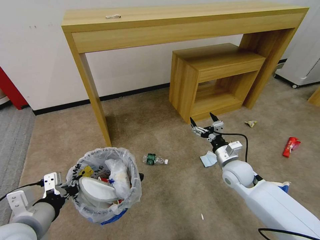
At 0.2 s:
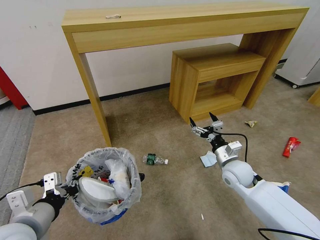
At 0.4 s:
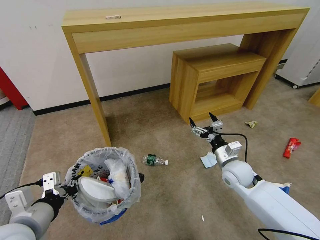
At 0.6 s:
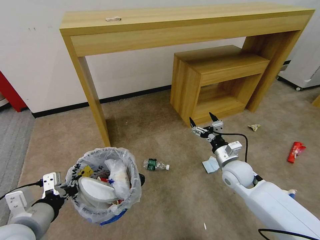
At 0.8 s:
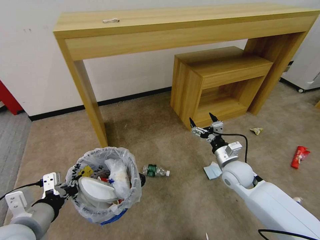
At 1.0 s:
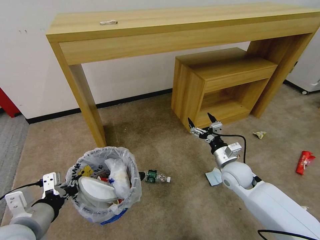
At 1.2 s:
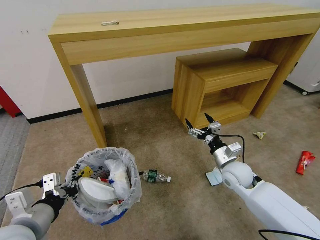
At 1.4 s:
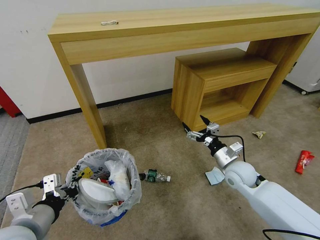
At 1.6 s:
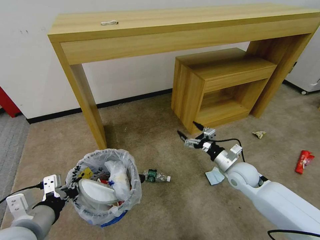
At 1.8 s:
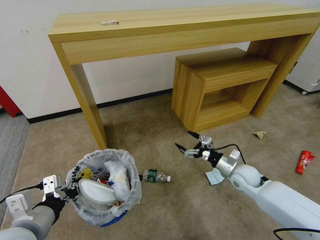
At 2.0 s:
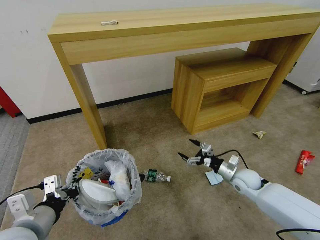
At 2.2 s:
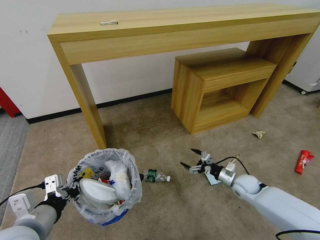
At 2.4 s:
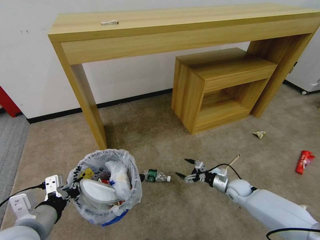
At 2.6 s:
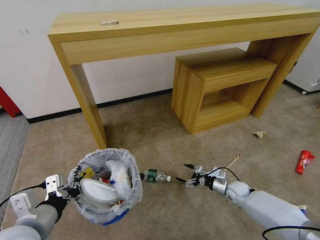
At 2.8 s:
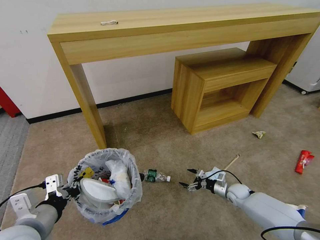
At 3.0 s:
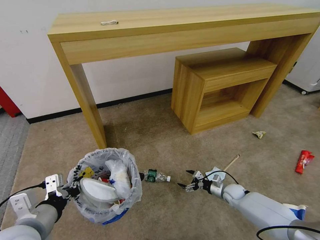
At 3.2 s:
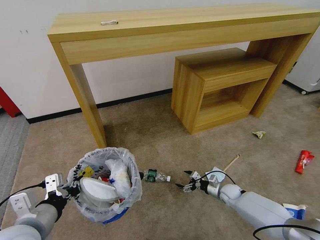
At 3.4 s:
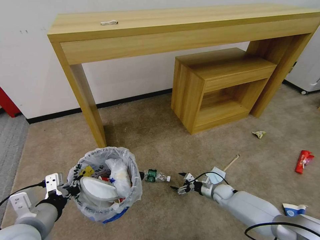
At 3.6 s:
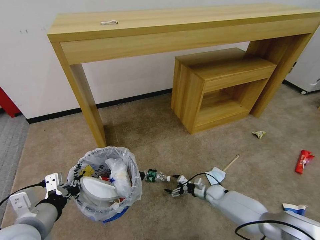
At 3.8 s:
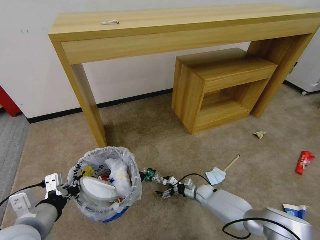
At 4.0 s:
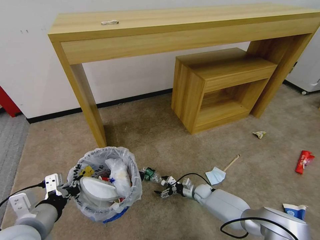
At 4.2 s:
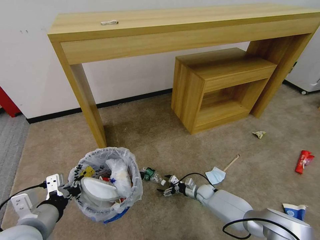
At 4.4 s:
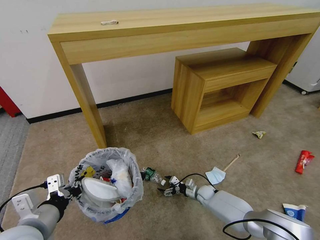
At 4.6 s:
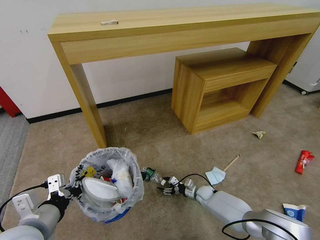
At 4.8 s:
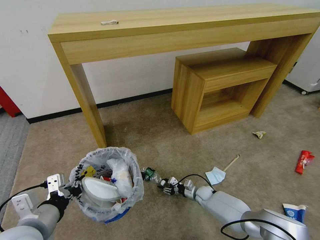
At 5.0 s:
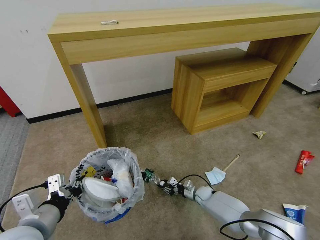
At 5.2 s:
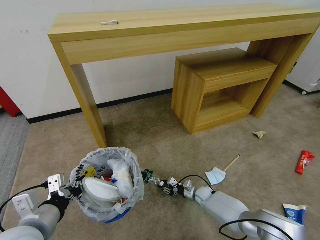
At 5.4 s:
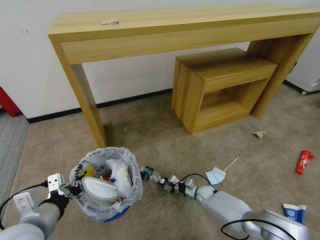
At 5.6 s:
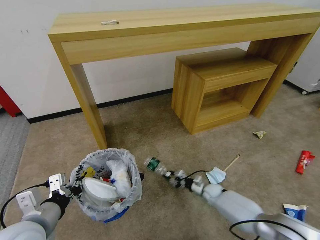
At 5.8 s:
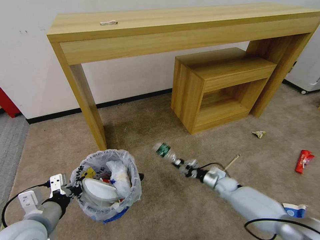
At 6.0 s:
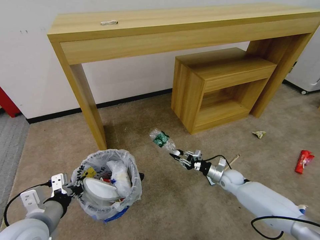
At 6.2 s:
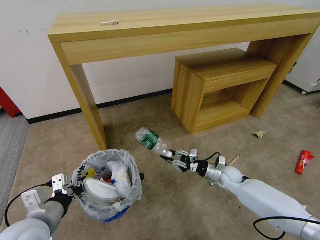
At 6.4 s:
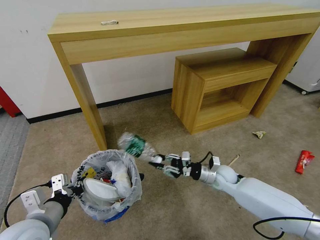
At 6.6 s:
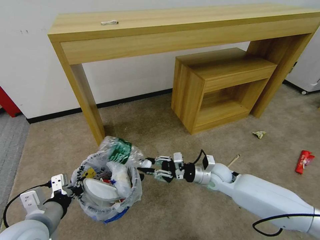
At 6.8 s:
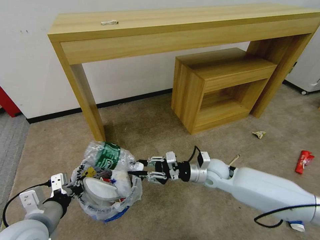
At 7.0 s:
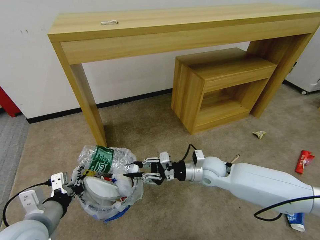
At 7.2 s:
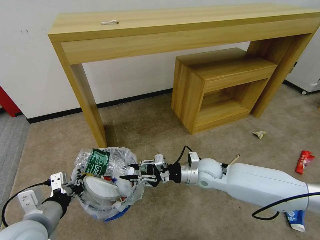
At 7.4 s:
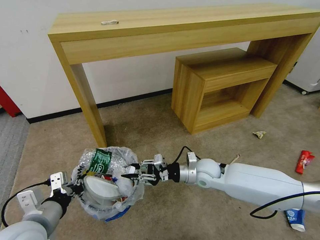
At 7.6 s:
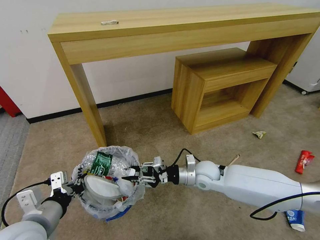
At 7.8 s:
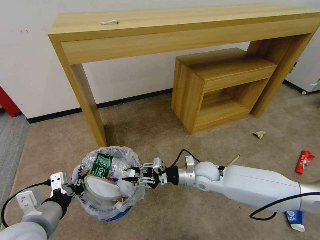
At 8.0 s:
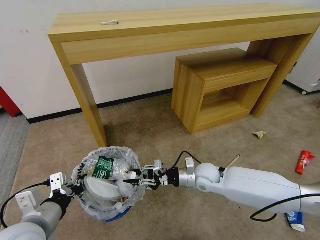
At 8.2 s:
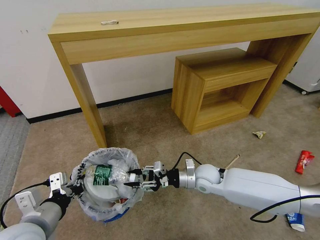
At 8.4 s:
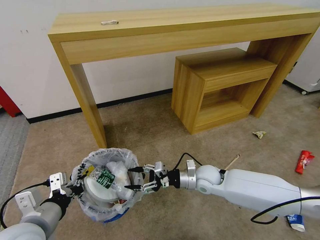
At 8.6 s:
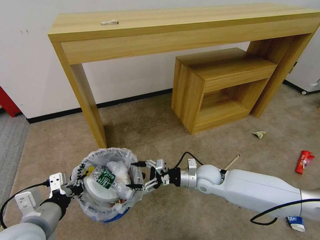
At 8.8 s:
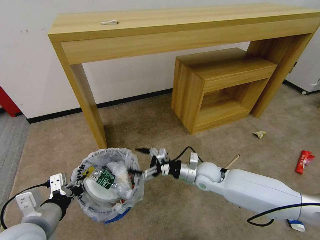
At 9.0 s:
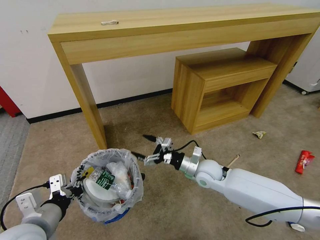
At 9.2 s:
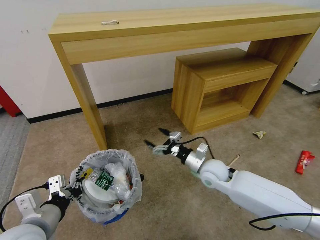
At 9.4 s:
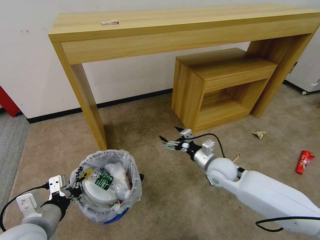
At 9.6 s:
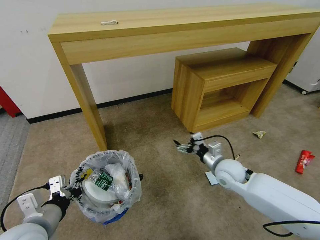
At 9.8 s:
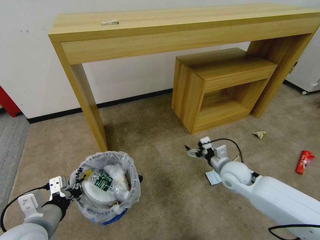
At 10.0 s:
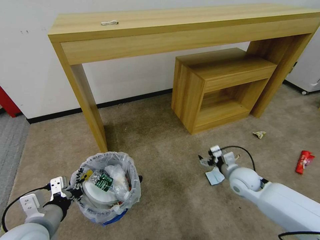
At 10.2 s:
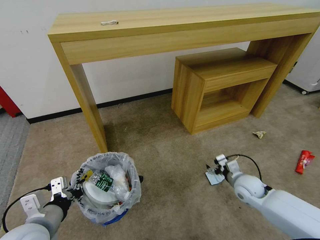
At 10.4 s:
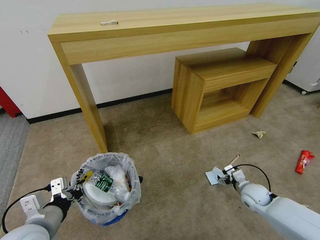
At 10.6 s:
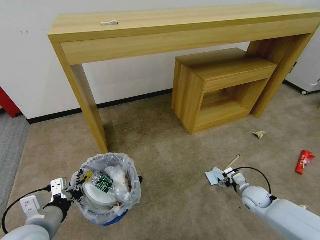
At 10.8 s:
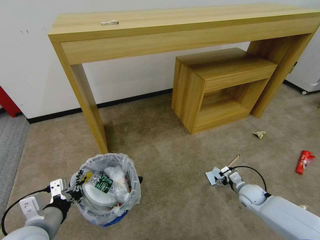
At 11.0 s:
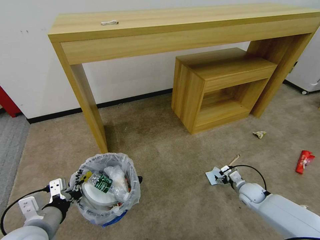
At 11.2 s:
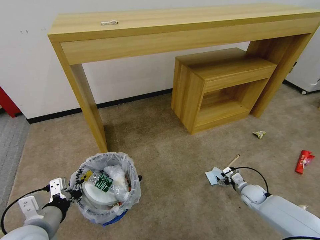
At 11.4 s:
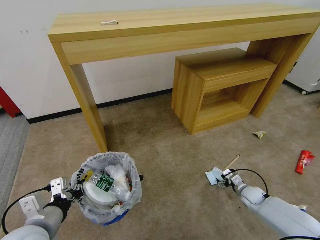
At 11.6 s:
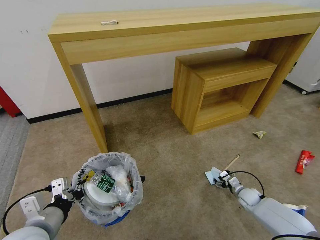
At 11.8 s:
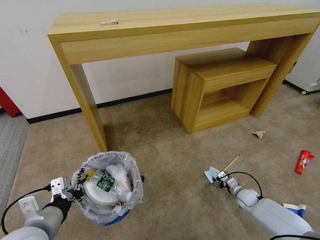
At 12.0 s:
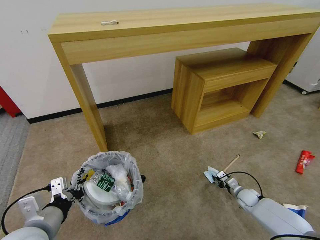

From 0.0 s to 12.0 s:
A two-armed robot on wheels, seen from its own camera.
Task of the whole recording: Pick up the trash bin and place the garbage on the floor into it.
From 1.6 s to 3.0 s: The right gripper moves downward, approximately 20 cm.
From 3.0 s to 4.4 s: The right gripper travels to the left and downward by about 10 cm.
From 4.4 s to 6.0 s: The right gripper goes roughly 15 cm upward and to the right, and closes.
From 6.0 s to 7.6 s: The right gripper is displaced to the left and upward by about 20 cm.
From 7.6 s to 9.0 s: The right gripper opens up.
From 9.0 s to 10.4 s: The right gripper travels to the right and downward by some 20 cm.
From 10.4 s to 12.0 s: The right gripper moves downward, approximately 10 cm, and closes.

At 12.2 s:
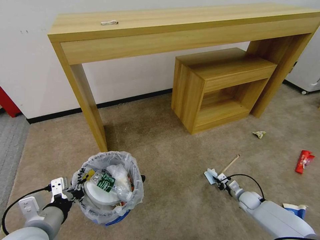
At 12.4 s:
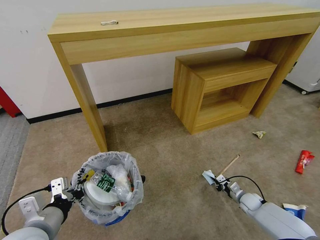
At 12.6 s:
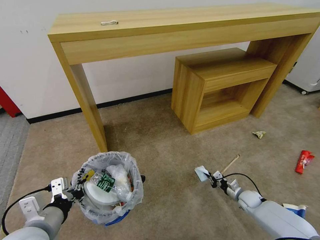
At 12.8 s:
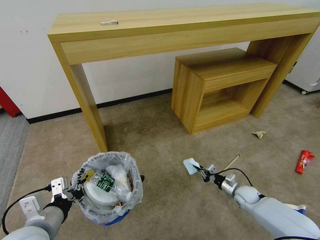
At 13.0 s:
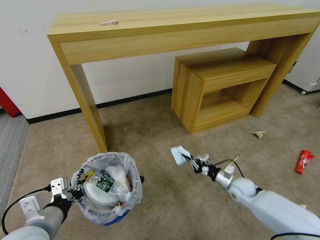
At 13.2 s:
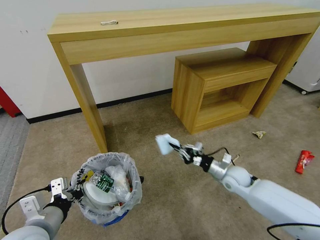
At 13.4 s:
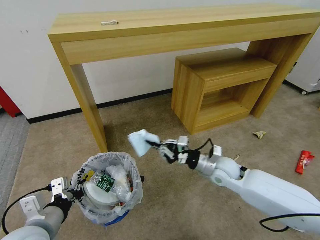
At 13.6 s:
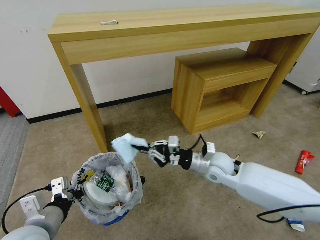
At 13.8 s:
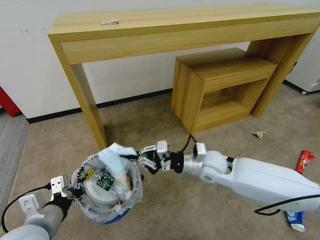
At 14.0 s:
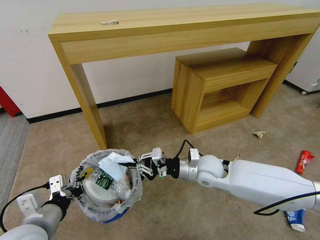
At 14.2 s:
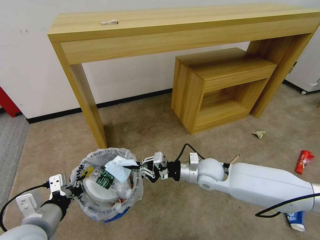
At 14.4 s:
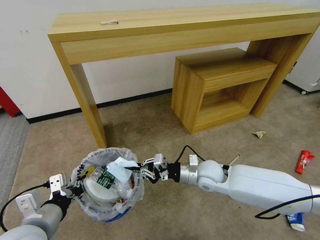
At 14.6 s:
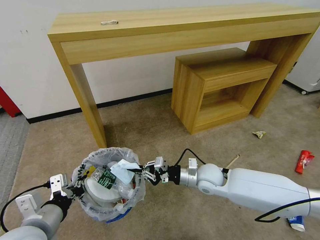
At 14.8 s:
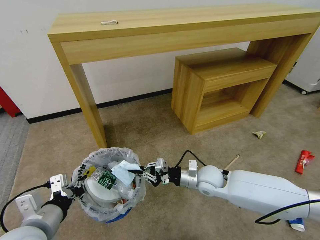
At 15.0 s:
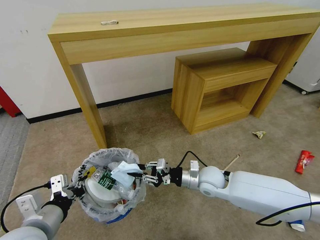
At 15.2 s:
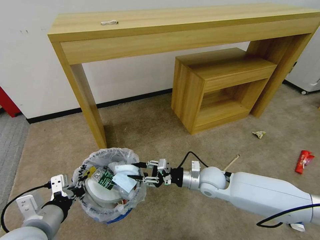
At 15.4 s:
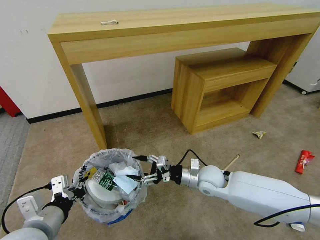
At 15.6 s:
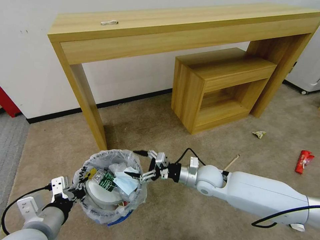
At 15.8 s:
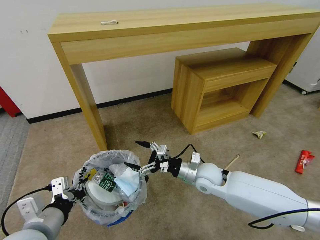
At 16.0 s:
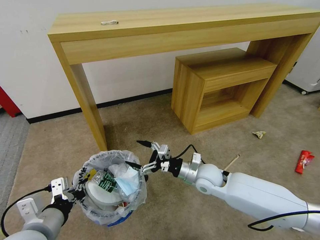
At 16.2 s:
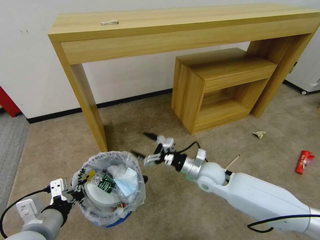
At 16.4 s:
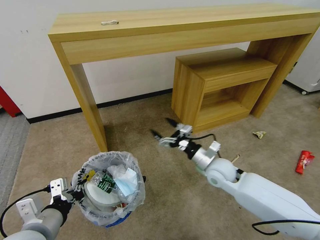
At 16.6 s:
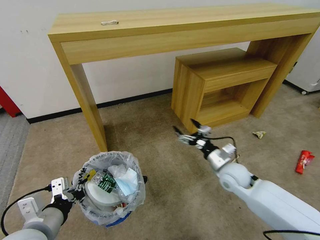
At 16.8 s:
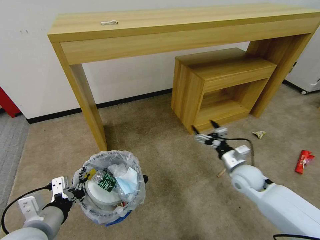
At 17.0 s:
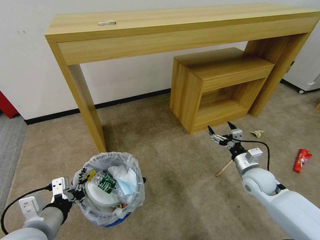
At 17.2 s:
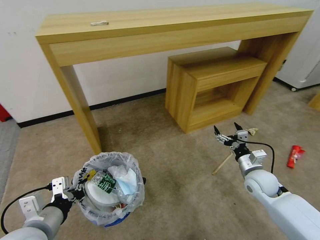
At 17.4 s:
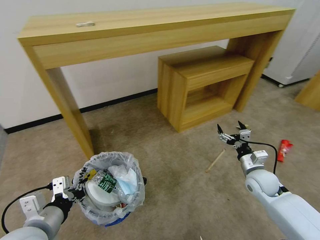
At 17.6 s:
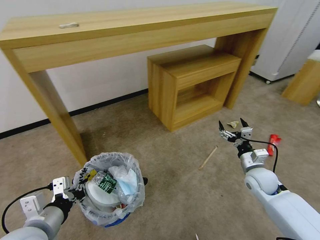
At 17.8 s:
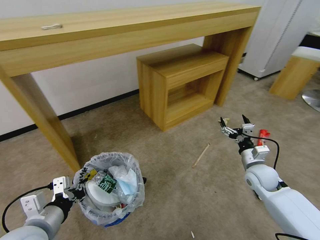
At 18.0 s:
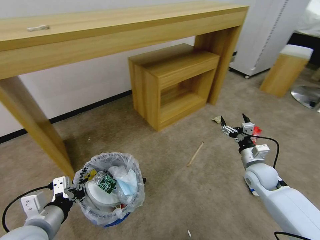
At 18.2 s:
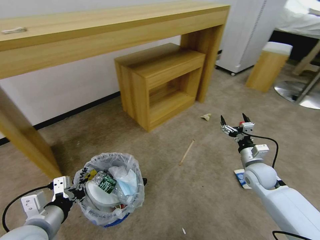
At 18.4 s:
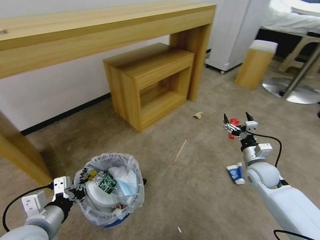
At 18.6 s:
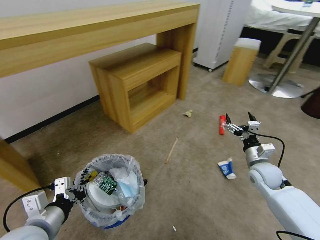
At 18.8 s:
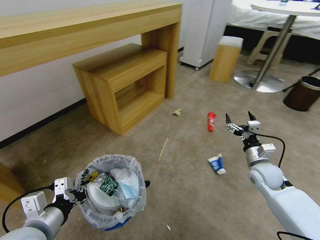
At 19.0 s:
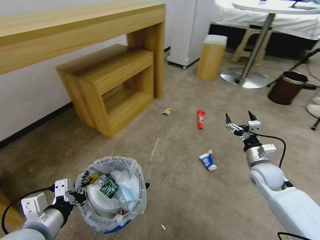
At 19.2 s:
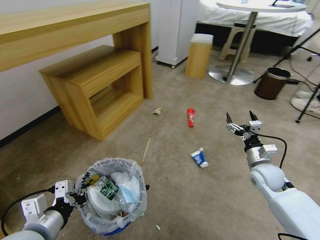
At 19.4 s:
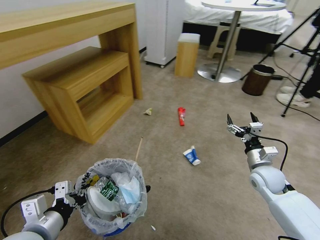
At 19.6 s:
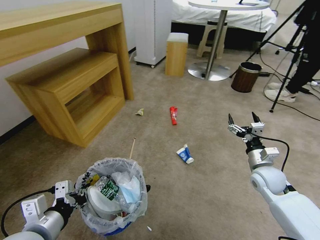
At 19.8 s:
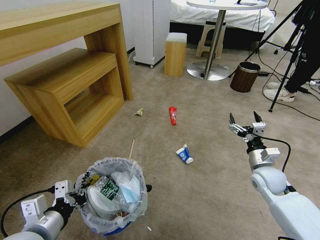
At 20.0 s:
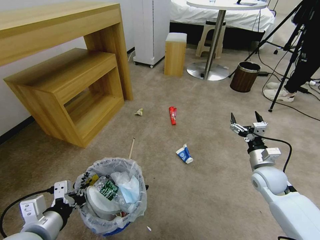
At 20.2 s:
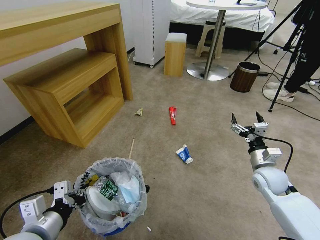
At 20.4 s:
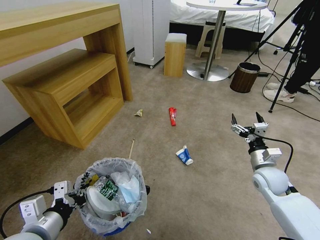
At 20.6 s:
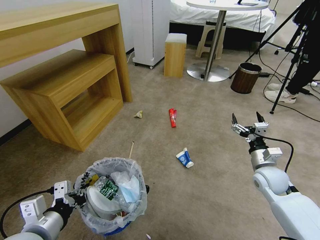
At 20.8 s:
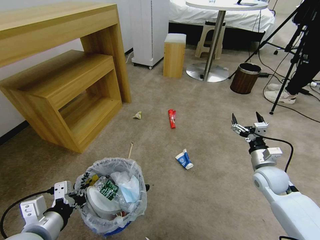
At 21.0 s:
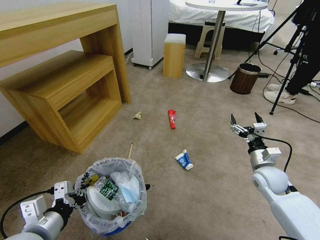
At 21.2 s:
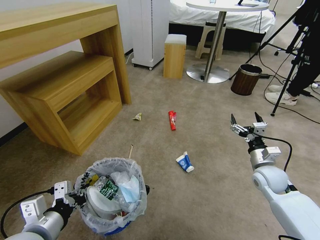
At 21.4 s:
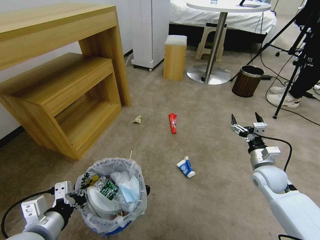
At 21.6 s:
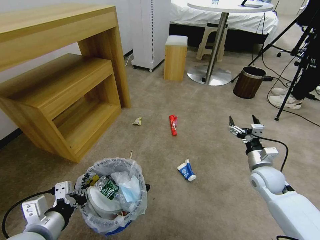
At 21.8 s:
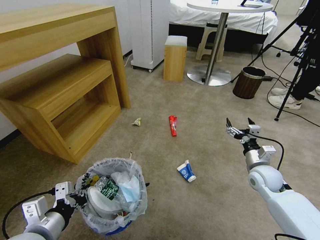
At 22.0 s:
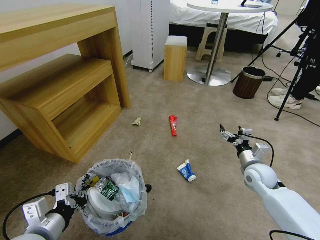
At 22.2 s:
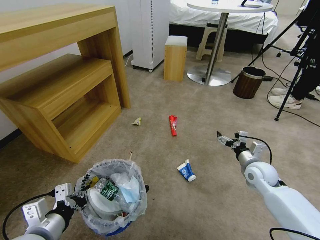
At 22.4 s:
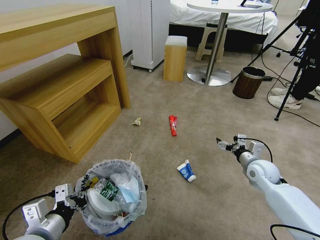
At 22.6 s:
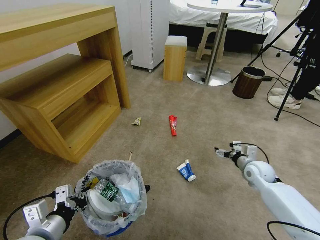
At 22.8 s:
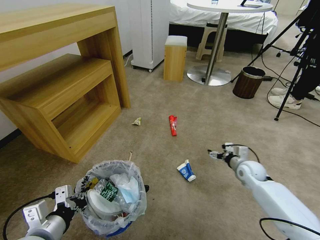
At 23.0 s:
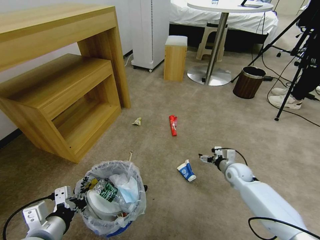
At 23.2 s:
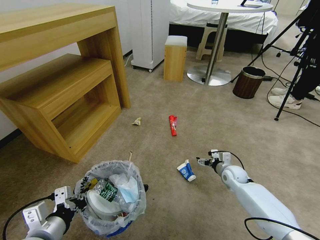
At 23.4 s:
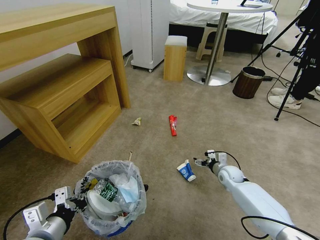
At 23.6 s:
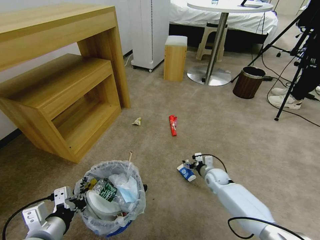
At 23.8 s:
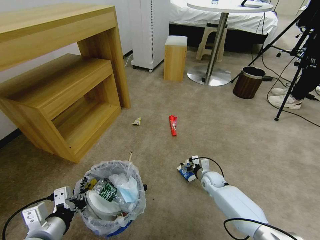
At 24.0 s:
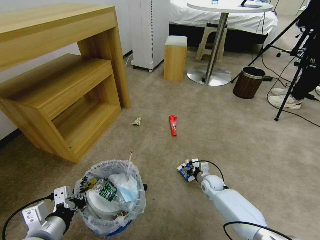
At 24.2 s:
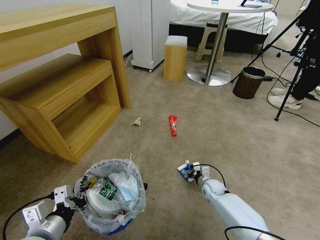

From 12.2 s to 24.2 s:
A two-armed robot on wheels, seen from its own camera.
Task of the whole recording: Pick up the trash bin and place the garbage on the floor into it.
From 12.2 s to 13.8 s: The right gripper is displaced upward and to the left by approximately 40 cm.
From 13.8 s to 15.2 s: The right gripper moves downward, roughly 10 cm, and opens its fingers.
From 15.2 s to 16.6 s: The right gripper heads to the right, covering roughly 10 cm, and opens its fingers.
From 16.6 s to 18.2 s: The right gripper shifts roughly 10 cm to the right.
From 19.8 s to 21.2 s: Both grippers stay put.
From 21.2 s to 22.6 s: The right gripper shifts by some 5 cm.
From 22.6 s to 24.2 s: The right gripper moves downward and to the left, approximately 20 cm, and closes up.
